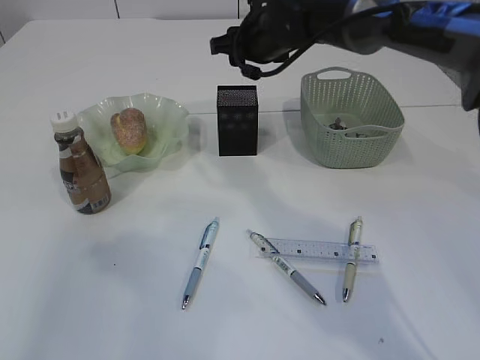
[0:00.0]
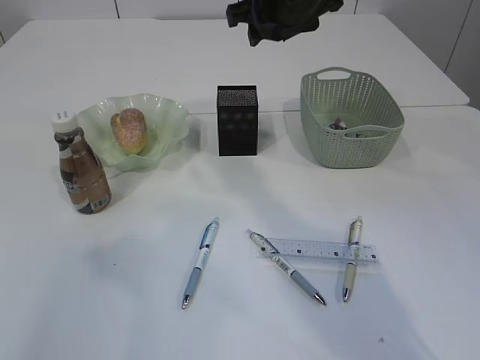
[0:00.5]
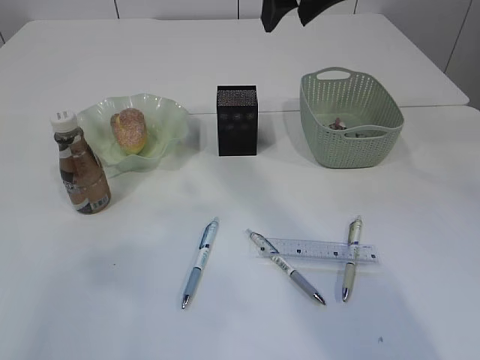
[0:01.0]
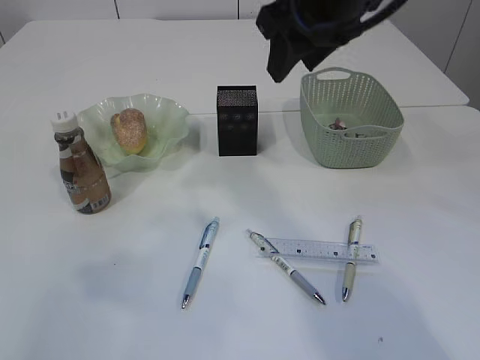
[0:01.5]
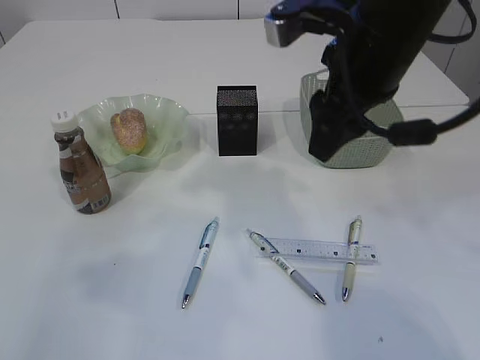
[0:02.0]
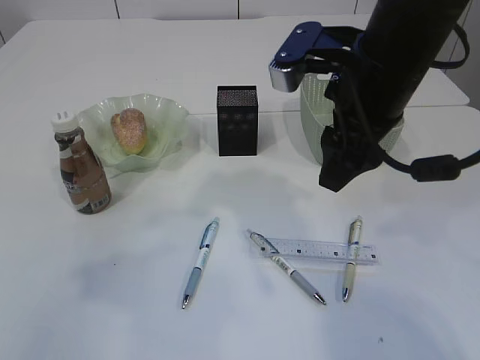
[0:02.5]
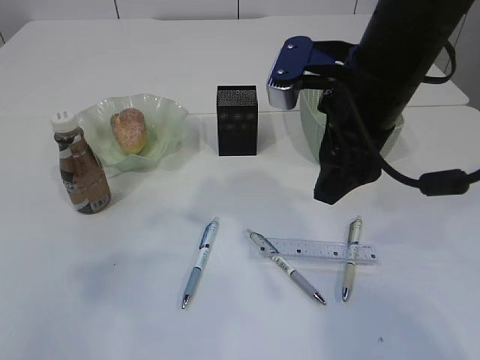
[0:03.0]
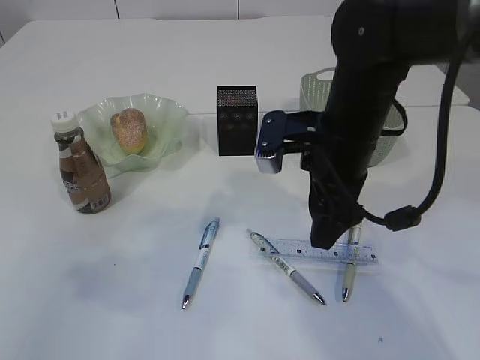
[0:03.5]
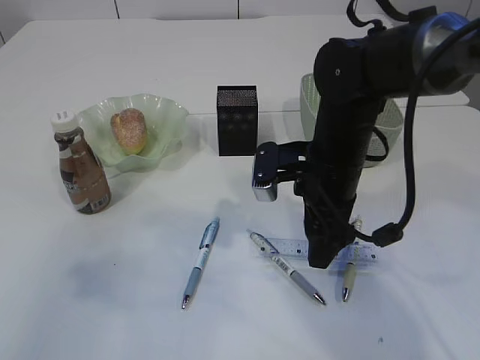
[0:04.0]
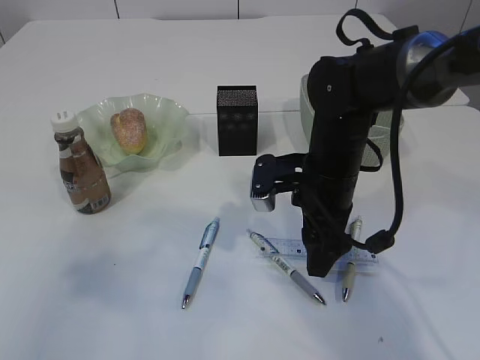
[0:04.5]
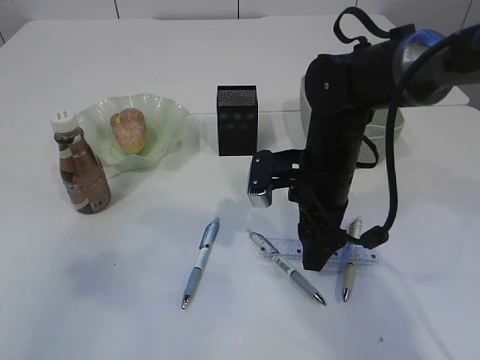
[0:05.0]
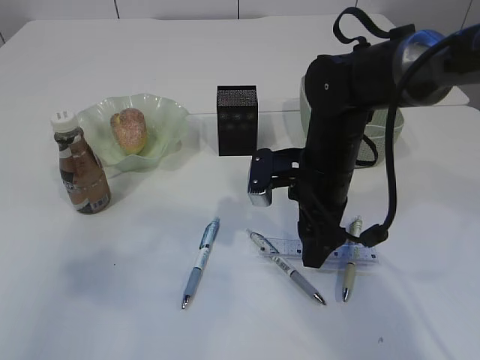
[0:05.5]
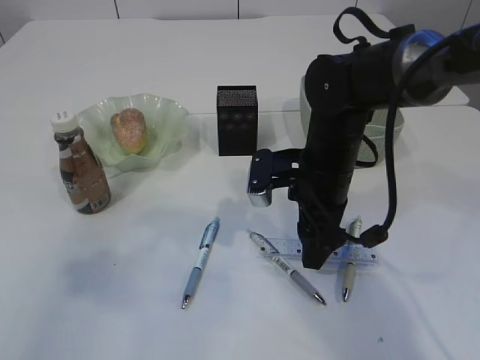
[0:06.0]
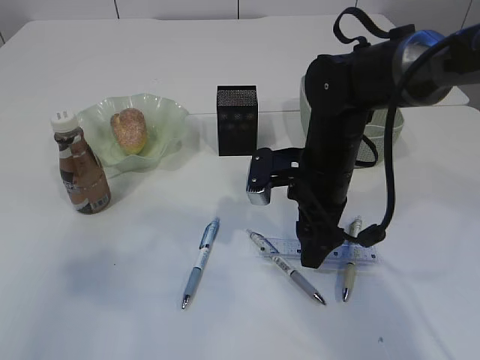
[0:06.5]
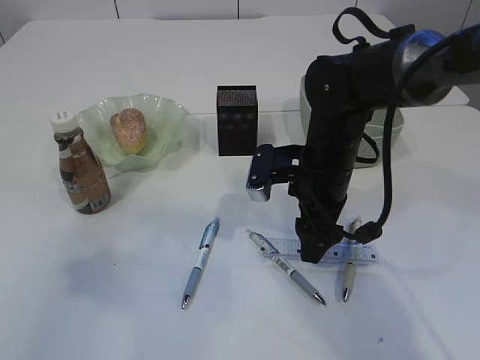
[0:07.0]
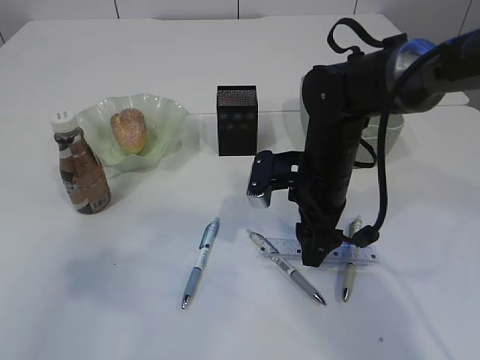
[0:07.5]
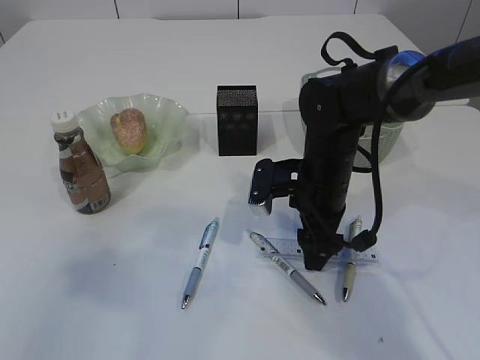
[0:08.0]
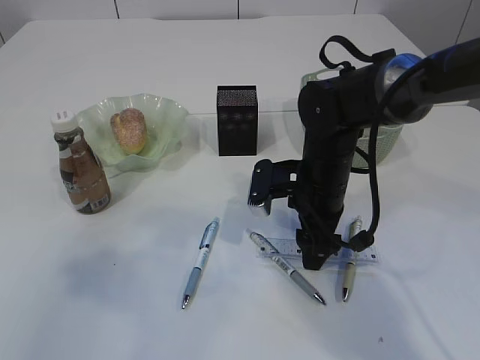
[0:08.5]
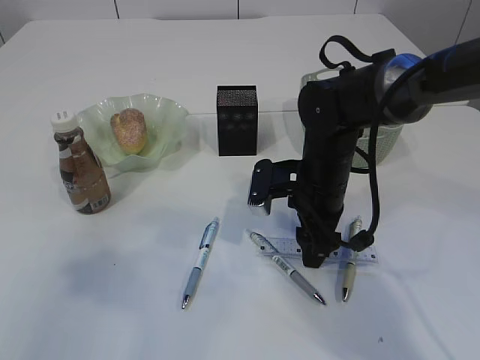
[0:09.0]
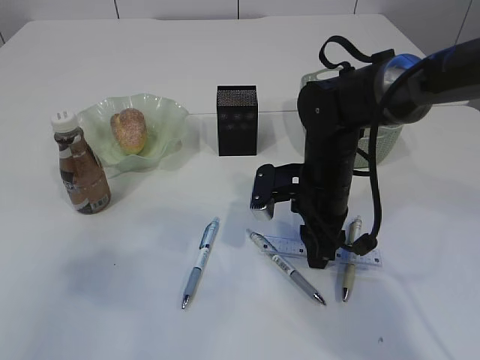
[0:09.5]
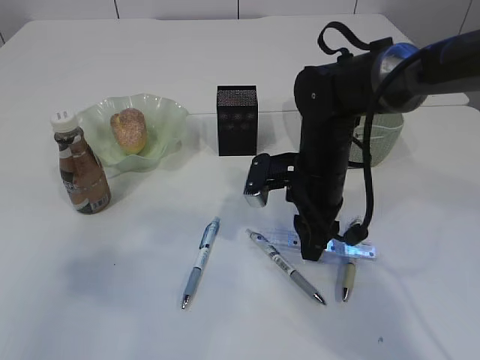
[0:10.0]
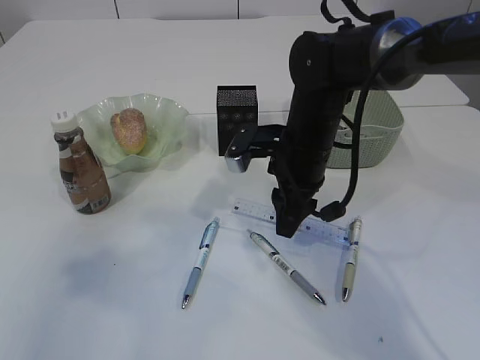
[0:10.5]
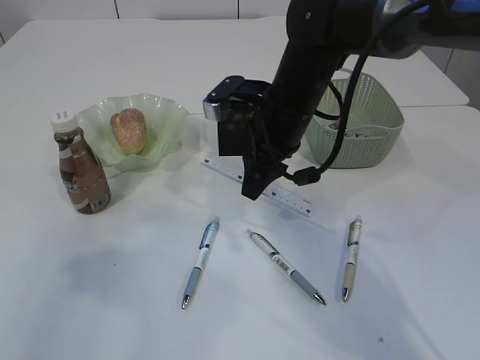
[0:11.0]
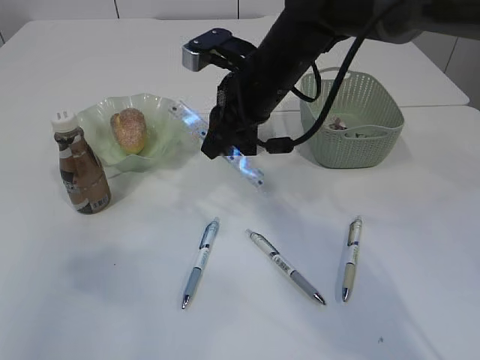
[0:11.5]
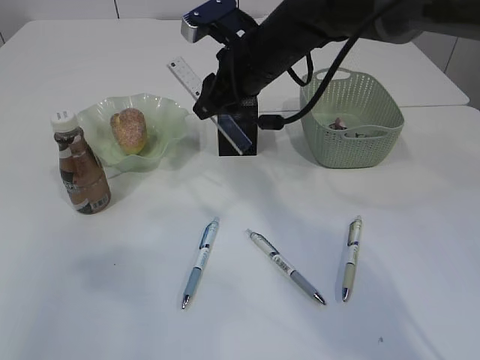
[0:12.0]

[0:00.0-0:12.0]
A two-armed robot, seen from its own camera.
Step, 0:00.5 to 0:10.5: pick up the ruler.
0:00.0 to 0:02.0: The right gripper moves backward and upward, some 20 cm.
0:02.0 to 0:04.0: The right gripper is displaced downward by approximately 15 cm.
0:04.0 to 0:08.0: The grippers stay close to where they were, moving slightly.
0:08.0 to 0:10.0: The right gripper closes.
0:10.0 to 0:12.0: The right gripper moves upward, forward and to the left, roughly 15 cm.

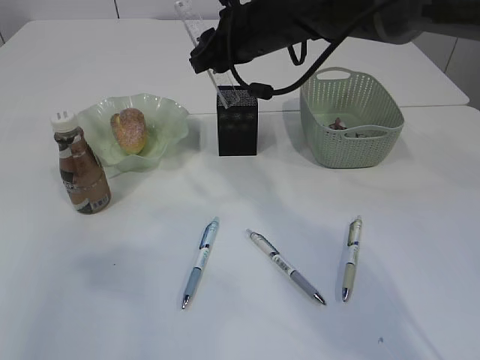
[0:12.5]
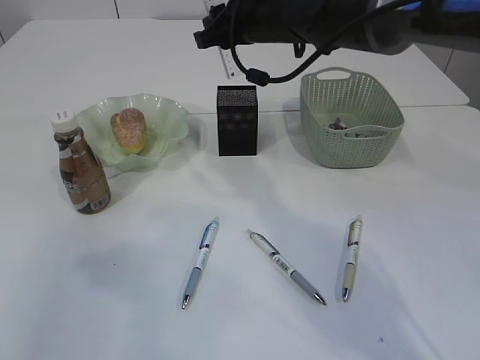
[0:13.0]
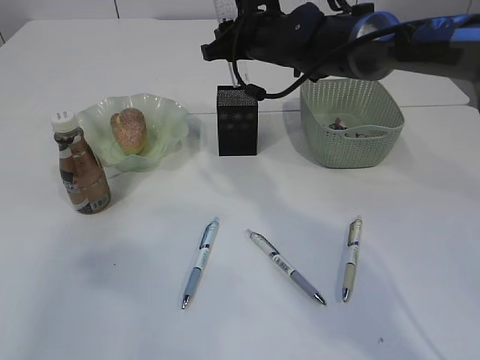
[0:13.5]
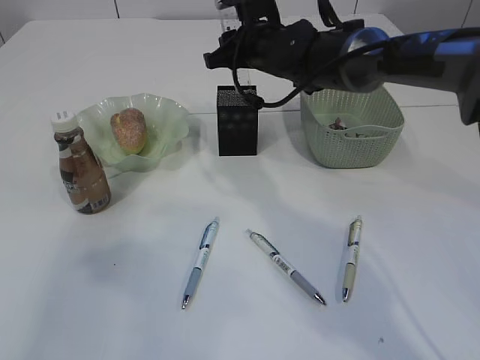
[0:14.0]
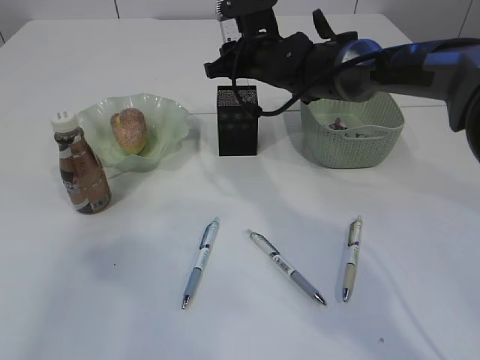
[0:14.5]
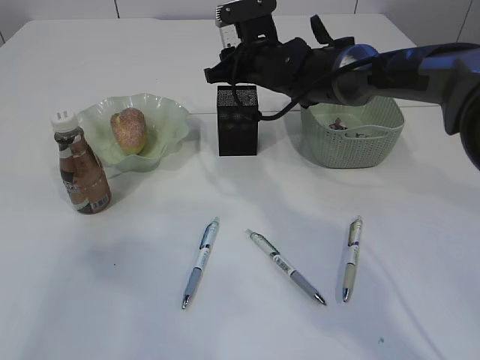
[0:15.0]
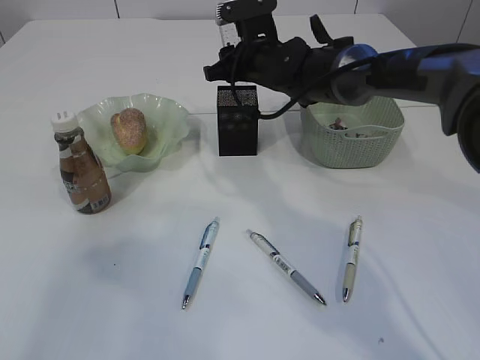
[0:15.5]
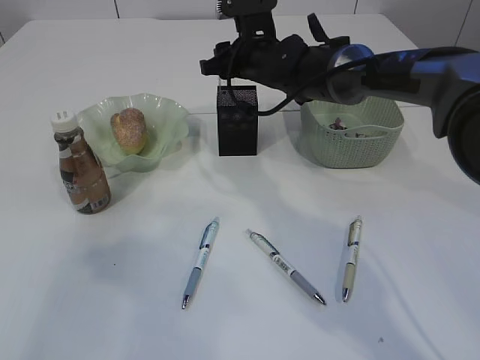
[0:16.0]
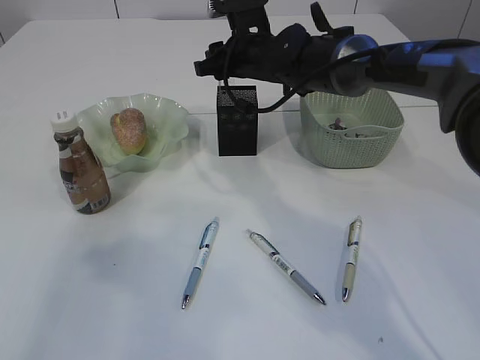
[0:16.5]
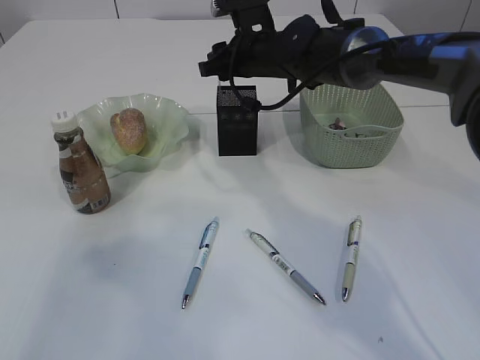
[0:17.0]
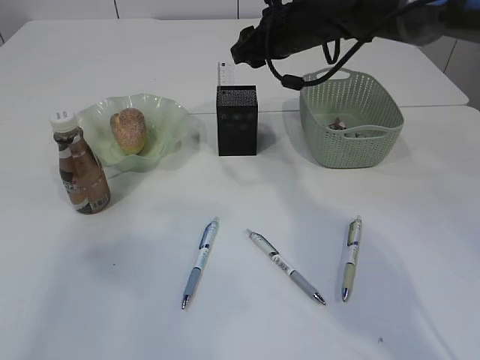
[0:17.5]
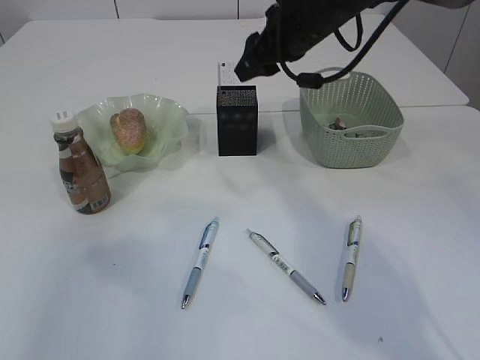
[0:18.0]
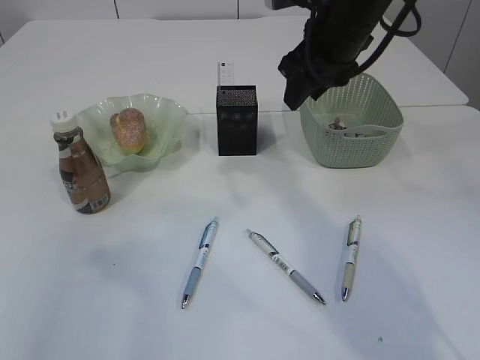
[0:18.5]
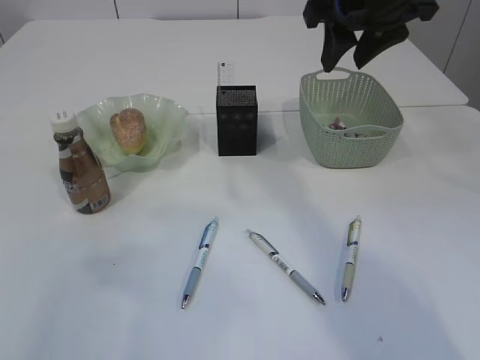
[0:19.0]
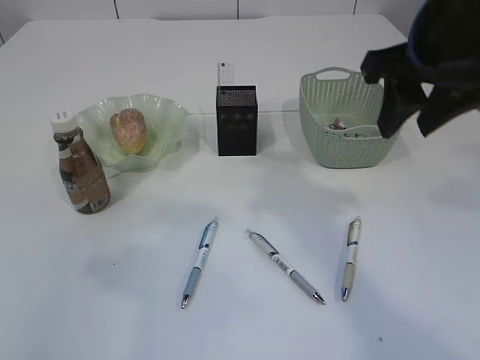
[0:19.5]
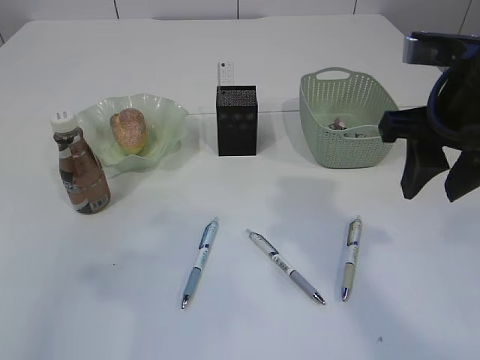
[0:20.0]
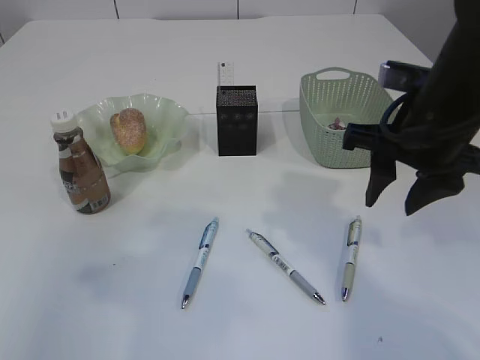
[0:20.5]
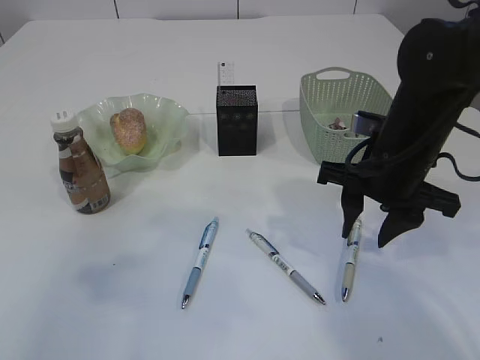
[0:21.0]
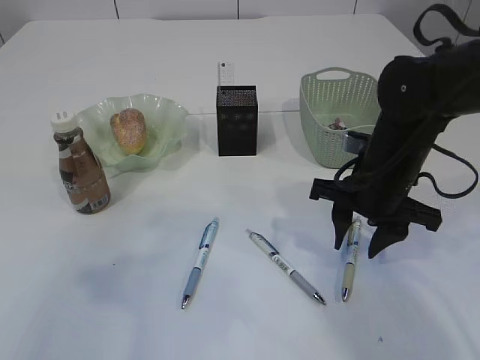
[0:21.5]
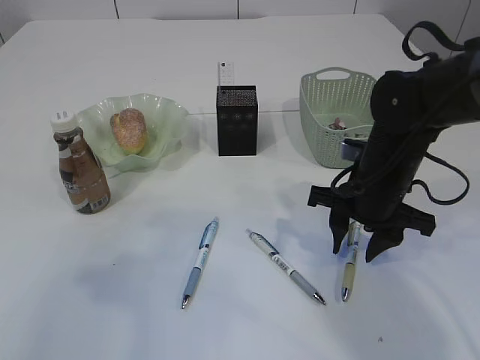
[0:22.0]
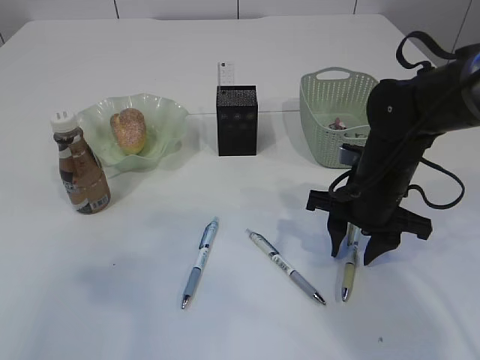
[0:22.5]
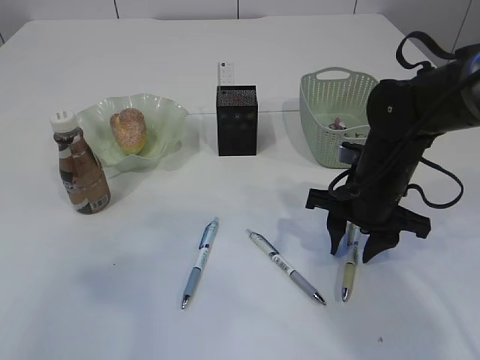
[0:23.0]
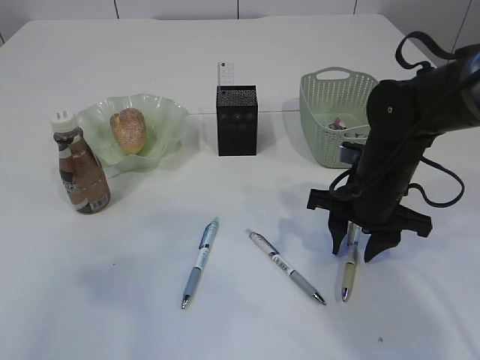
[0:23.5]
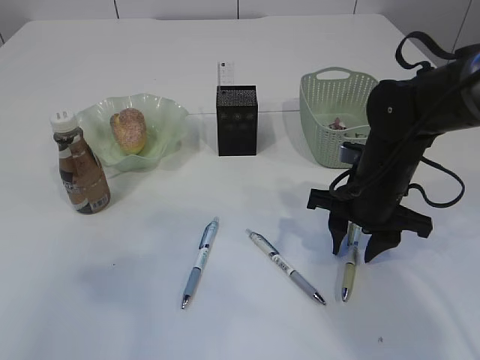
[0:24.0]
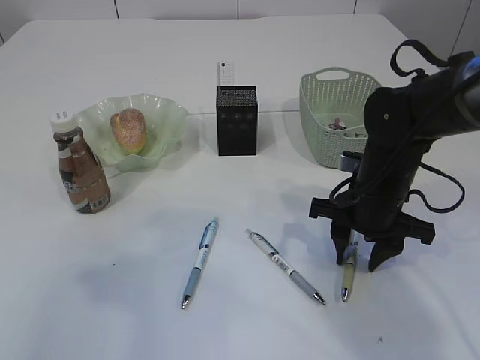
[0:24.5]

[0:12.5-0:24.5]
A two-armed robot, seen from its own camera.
Step, 0:12.5 to 0:17.0: Place the ruler into the pen holder.
0:12.5 to 0:14.5: The right gripper shifts roughly 5 cm downward.
0:14.5 to 0:16.5: The grippers move only a little.
0:16.5 to 0:18.5: The right gripper goes roughly 15 cm backward, upward and to the right.
0:18.5 to 0:20.5: The right gripper heads backward, covering roughly 15 cm.
0:20.5 to 0:22.5: The right gripper heads downward, covering roughly 15 cm.
0:22.5 to 0:24.5: Both grippers stay about where they are.

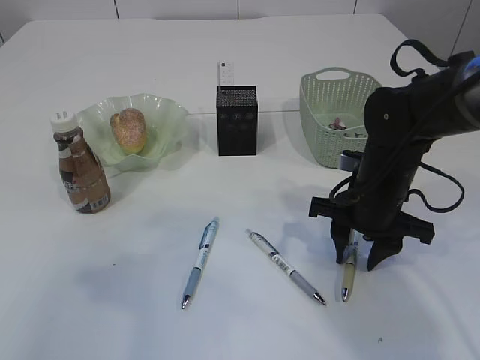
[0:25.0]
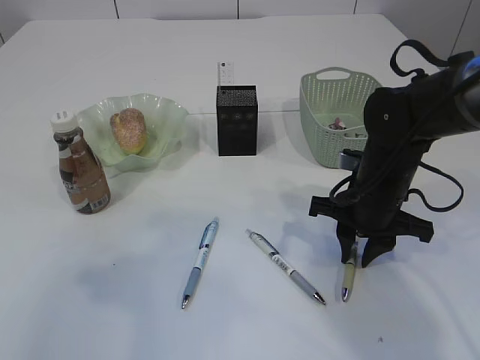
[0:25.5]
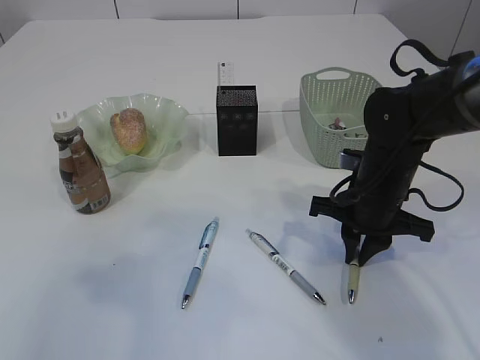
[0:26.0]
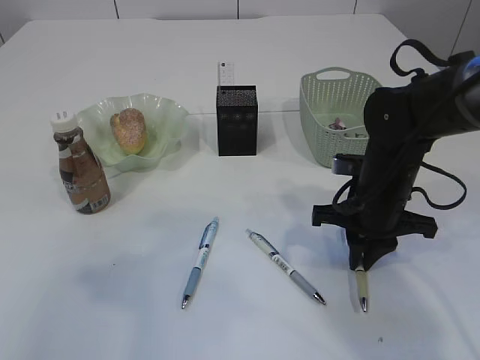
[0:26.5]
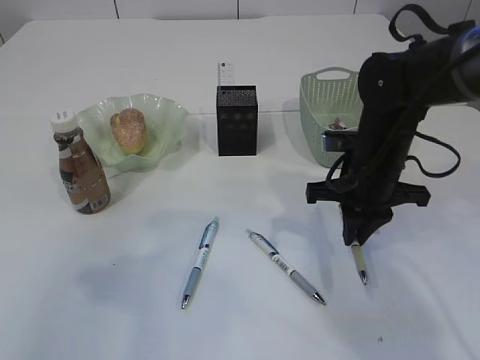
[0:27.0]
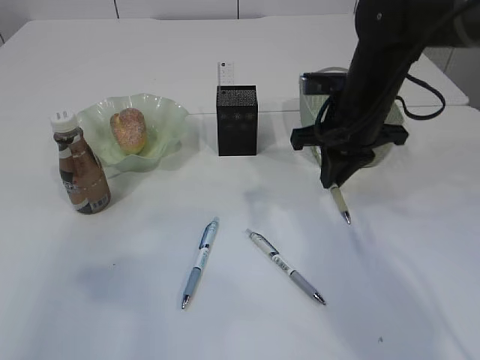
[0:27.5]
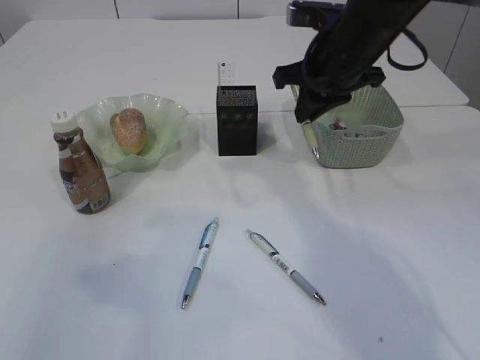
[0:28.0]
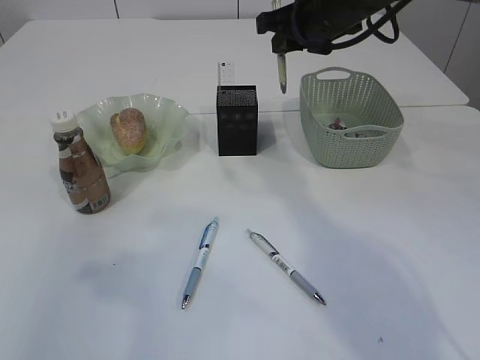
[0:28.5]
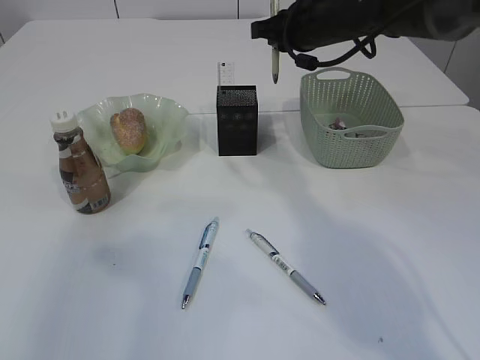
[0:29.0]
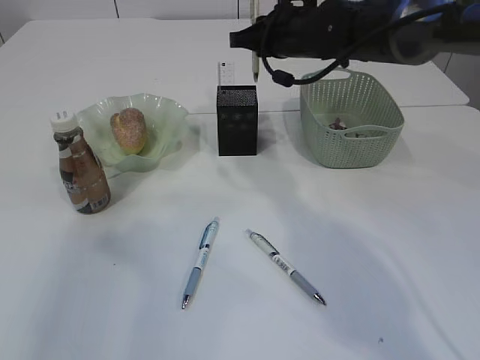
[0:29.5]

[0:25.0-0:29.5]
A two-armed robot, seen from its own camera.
Step, 0:25.0 to 0:27.0: Pick up the pen with right arm.
0:25.0 to 0:27.0: The right gripper closes its fingers.
0:27.0 to 0:29.5: The right gripper goes approximately 20 cm forward and upward.
